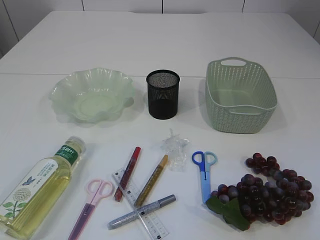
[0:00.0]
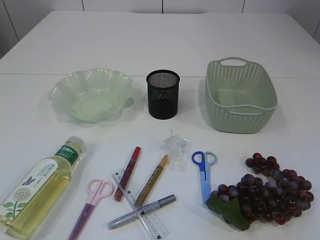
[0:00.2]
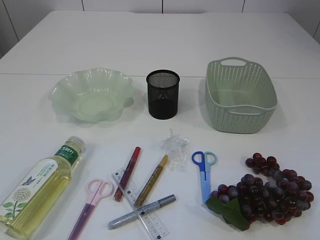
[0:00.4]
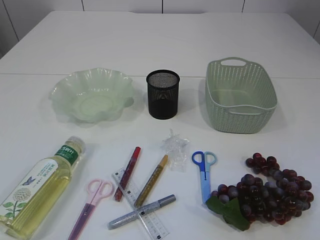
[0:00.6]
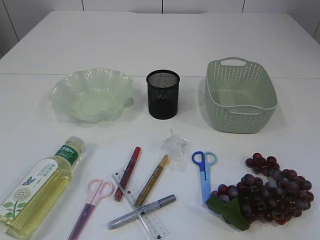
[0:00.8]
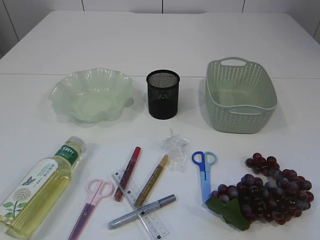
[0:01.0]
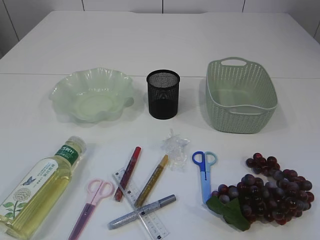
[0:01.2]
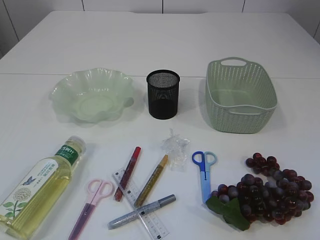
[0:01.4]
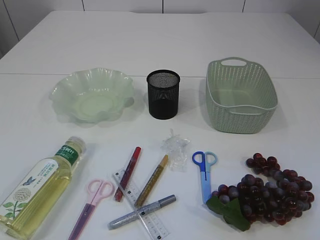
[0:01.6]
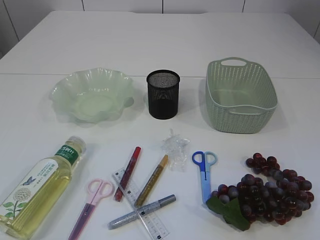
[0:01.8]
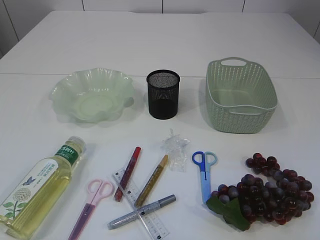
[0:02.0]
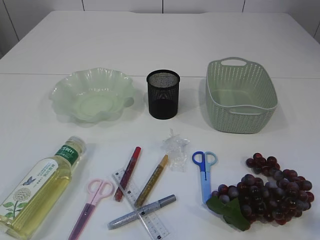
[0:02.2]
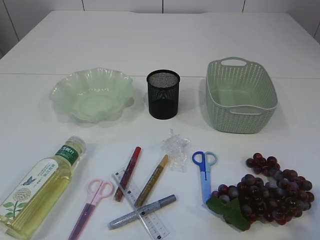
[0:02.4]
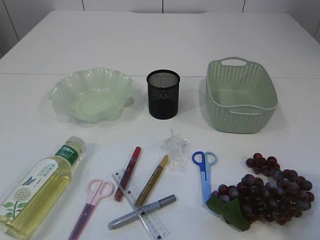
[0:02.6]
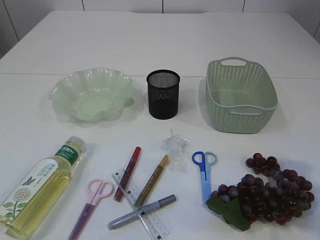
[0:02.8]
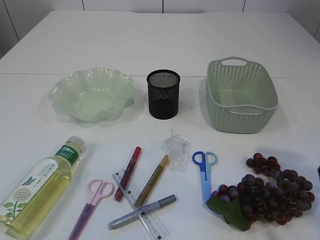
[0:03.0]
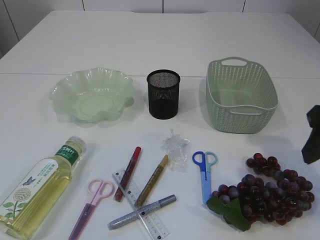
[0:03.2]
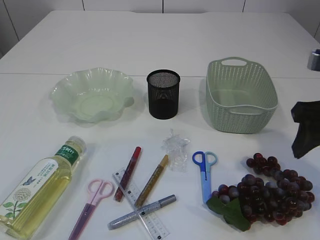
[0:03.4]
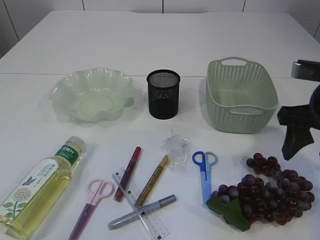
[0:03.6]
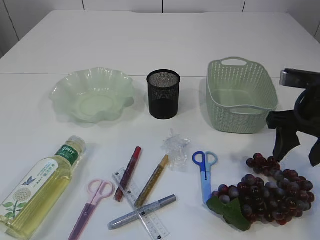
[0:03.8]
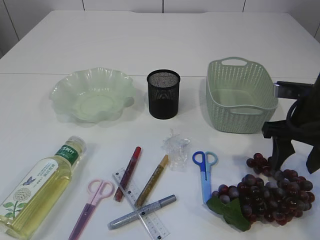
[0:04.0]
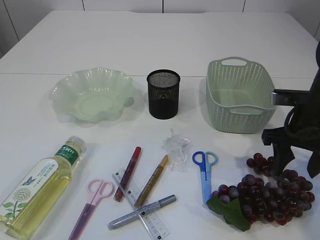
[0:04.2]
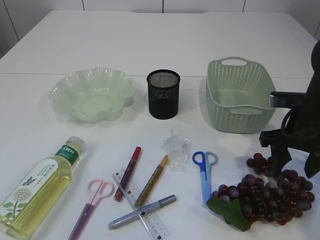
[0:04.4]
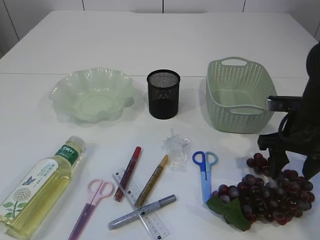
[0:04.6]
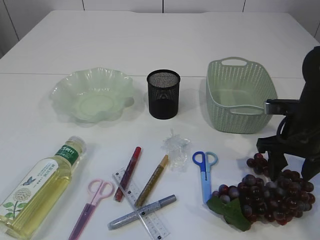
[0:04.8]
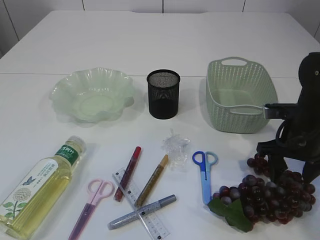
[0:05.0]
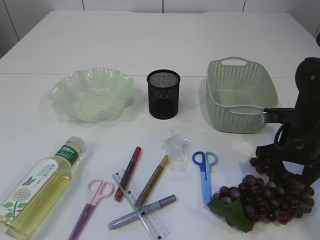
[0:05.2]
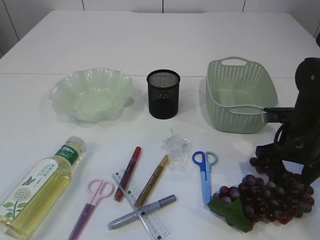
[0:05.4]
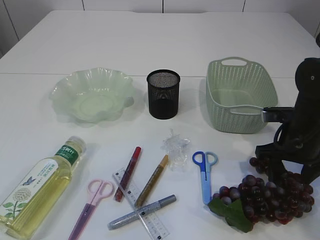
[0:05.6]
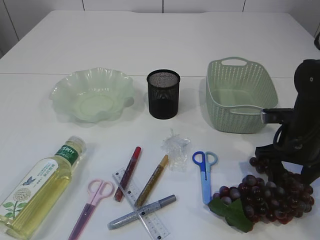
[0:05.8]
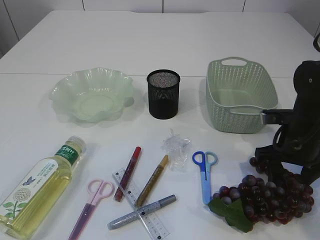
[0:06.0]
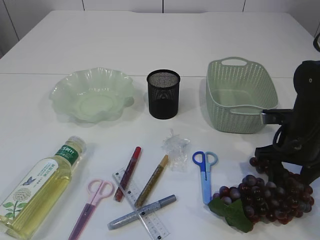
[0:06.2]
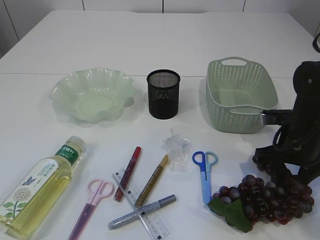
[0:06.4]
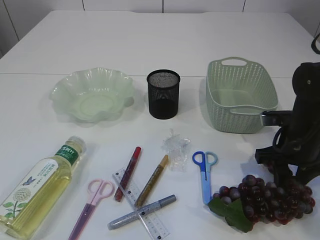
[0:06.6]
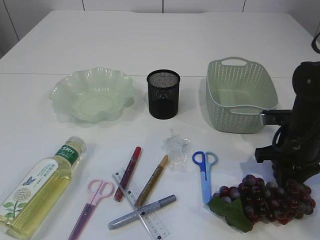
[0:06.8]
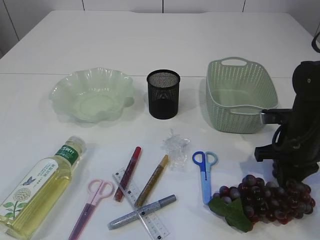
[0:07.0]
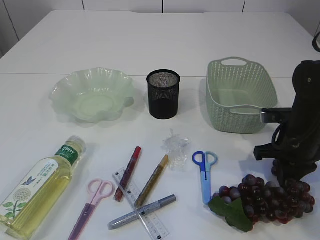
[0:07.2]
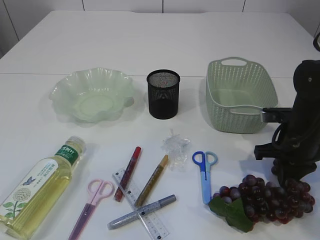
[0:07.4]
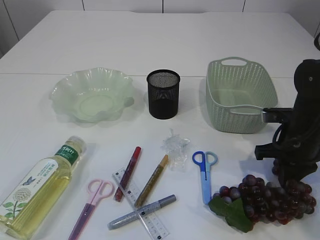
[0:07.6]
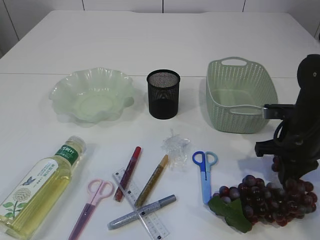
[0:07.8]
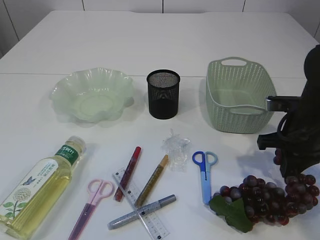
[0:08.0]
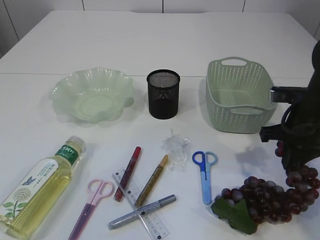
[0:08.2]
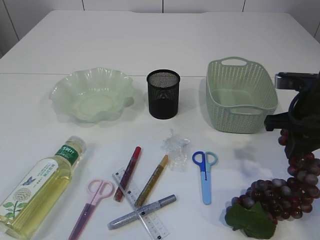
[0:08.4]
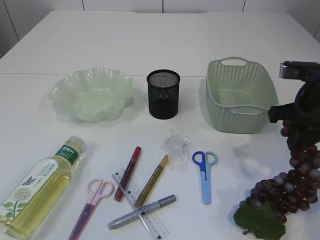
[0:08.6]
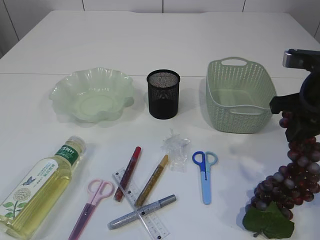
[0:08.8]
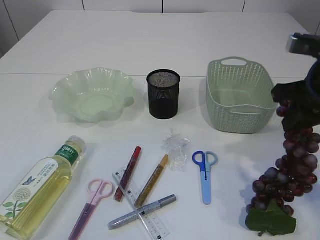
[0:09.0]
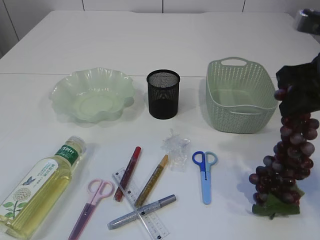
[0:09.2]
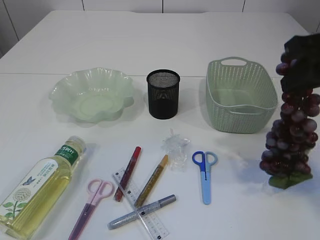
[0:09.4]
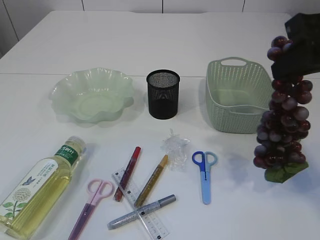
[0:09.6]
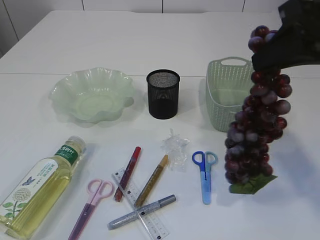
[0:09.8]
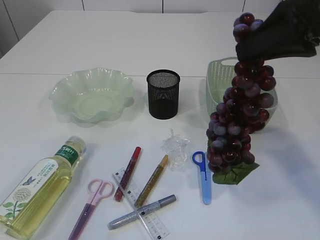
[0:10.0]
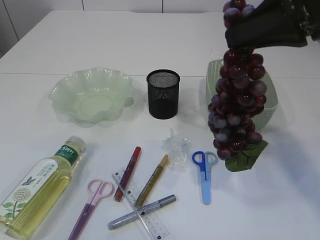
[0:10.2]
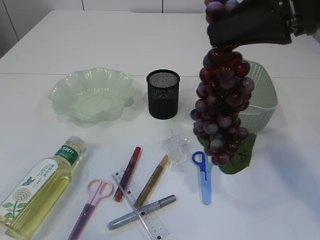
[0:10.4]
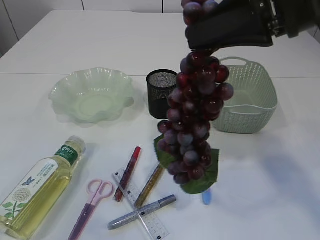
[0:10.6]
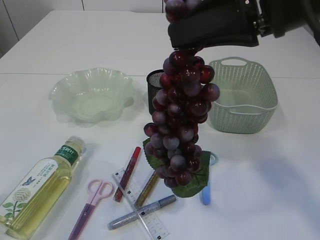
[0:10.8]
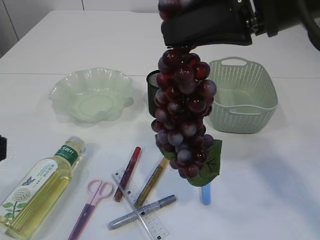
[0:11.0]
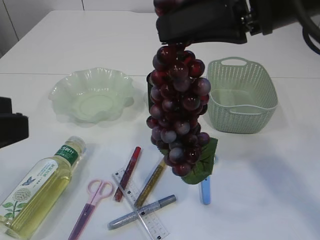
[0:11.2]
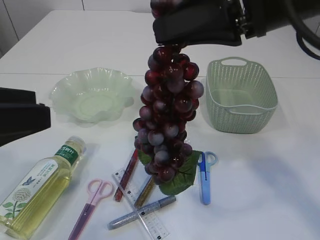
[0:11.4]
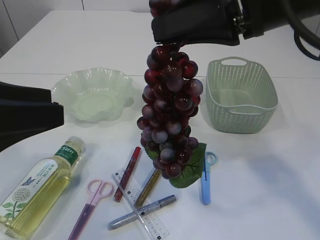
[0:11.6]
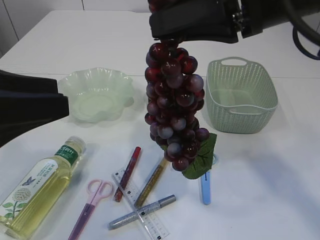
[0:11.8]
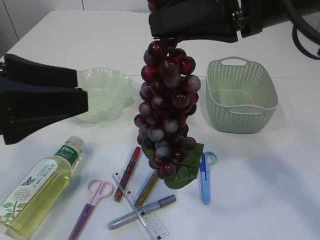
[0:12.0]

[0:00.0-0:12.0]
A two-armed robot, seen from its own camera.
Step, 0:00.0 to 0:10.2: Pick up the grapes.
0:01.6 to 0:03.0: The right gripper heads forward, covering roughly 20 cm.
0:03.0 to 0:04.4: The right gripper heads forward and downward, covering about 15 cm.
0:04.4 to 0:06.0: The grippers make only small movements.
0:06.0 to 0:07.6: The right gripper closes its fingers.
0:07.6 to 0:09.0: The right gripper moves upward, approximately 15 cm.
0:09.0 to 0:10.4: The right gripper heads upward and to the left, covering roughly 15 cm, while the left gripper heads forward, covering approximately 5 cm.
0:10.4 to 0:12.0: The left gripper goes approximately 15 cm forward and to the right, and opens. Meanwhile the right gripper is displaced to the left by some 5 cm.

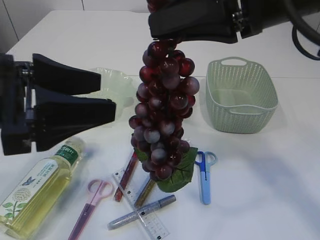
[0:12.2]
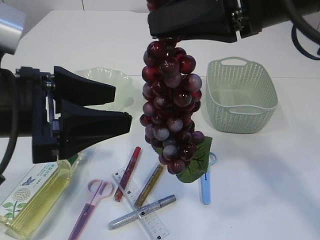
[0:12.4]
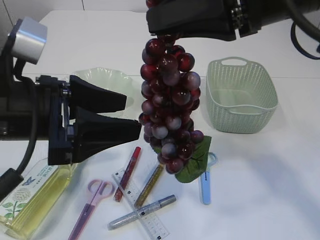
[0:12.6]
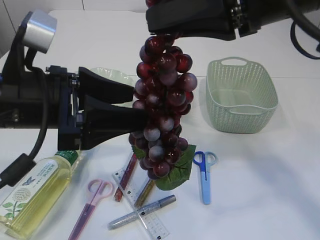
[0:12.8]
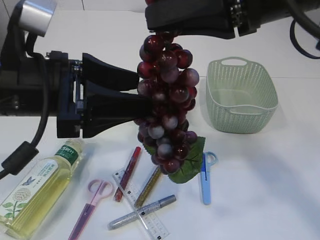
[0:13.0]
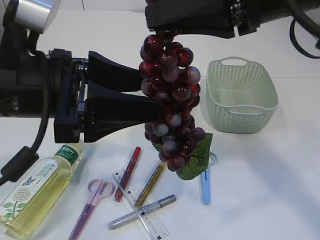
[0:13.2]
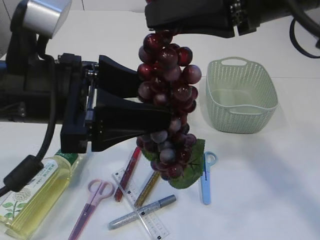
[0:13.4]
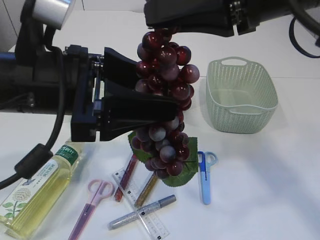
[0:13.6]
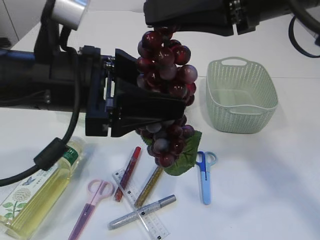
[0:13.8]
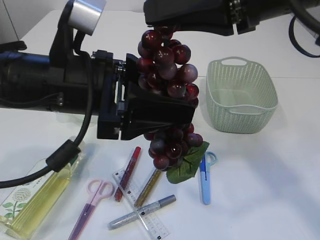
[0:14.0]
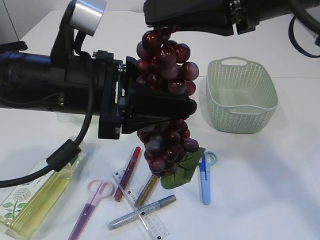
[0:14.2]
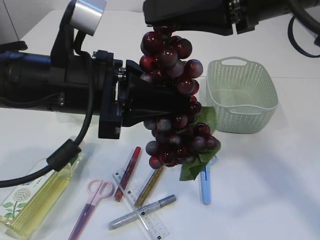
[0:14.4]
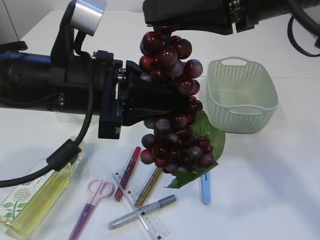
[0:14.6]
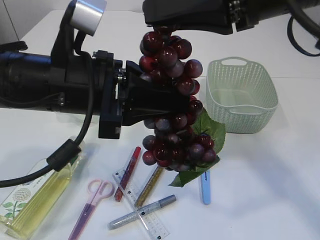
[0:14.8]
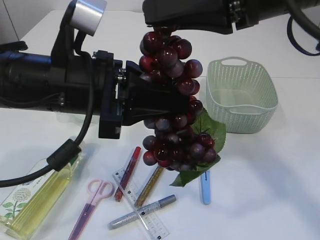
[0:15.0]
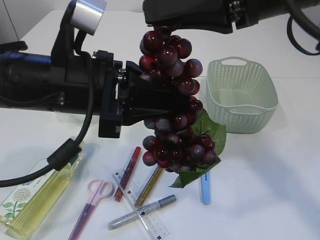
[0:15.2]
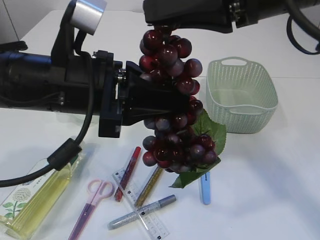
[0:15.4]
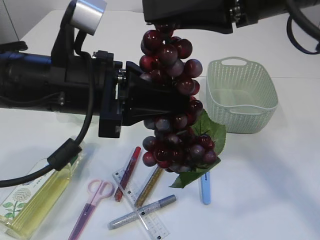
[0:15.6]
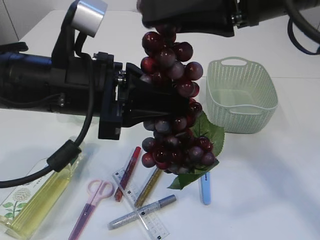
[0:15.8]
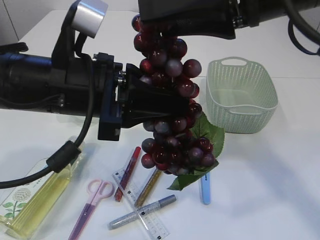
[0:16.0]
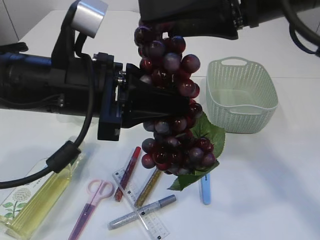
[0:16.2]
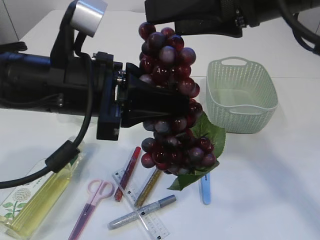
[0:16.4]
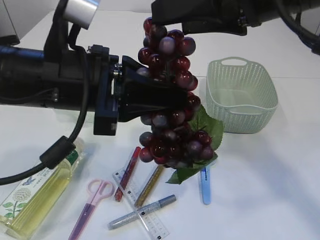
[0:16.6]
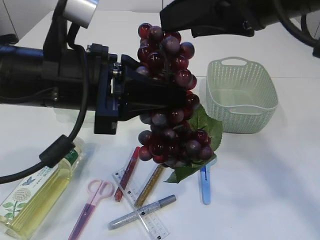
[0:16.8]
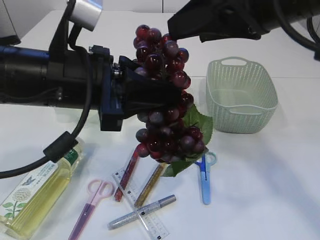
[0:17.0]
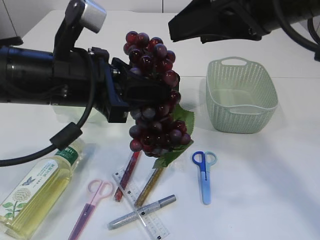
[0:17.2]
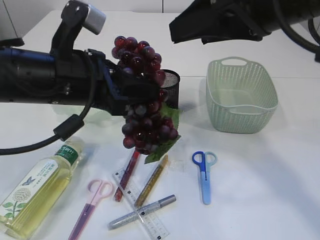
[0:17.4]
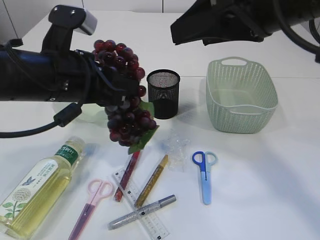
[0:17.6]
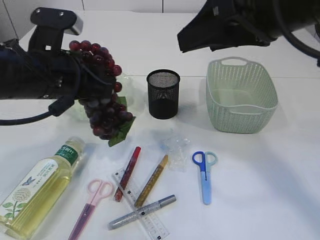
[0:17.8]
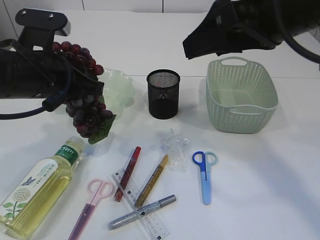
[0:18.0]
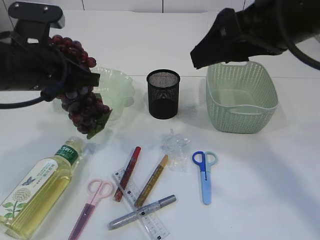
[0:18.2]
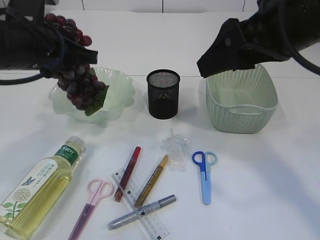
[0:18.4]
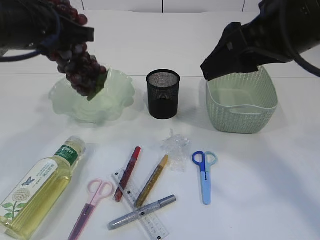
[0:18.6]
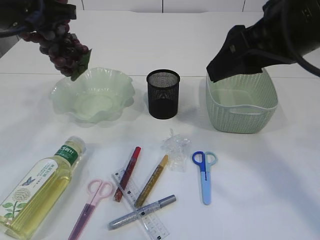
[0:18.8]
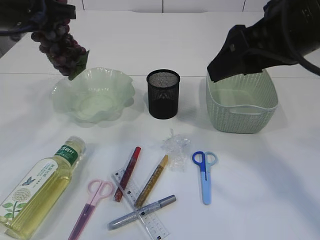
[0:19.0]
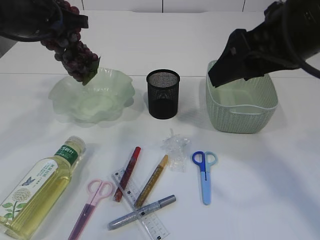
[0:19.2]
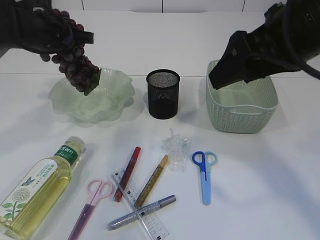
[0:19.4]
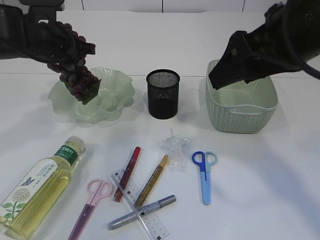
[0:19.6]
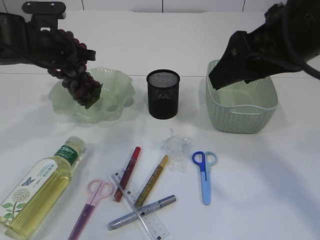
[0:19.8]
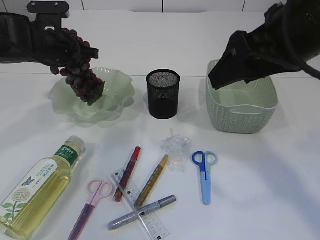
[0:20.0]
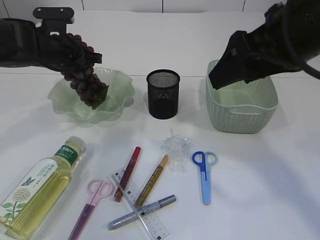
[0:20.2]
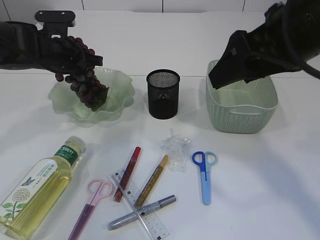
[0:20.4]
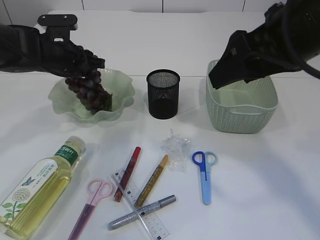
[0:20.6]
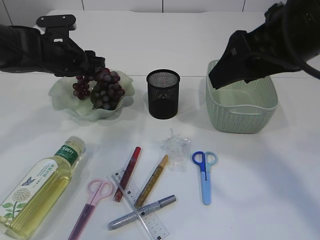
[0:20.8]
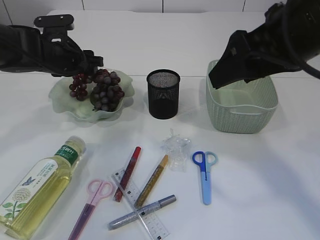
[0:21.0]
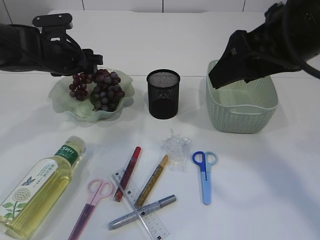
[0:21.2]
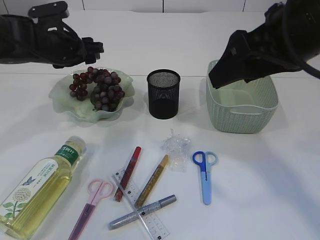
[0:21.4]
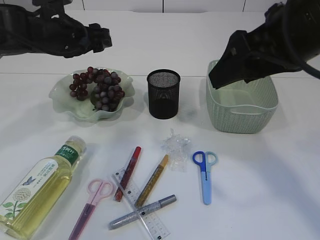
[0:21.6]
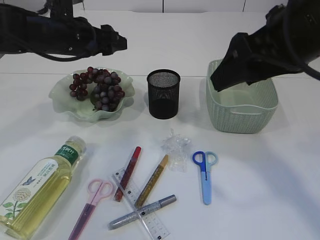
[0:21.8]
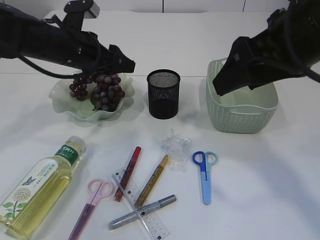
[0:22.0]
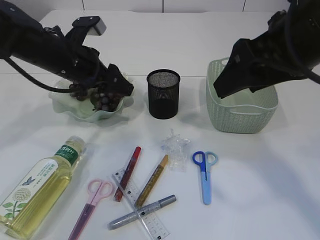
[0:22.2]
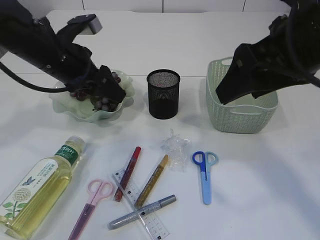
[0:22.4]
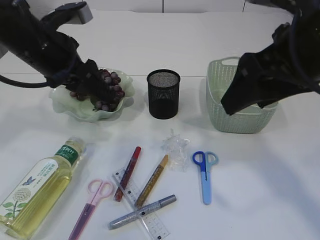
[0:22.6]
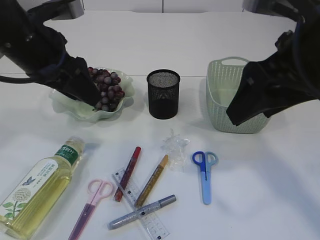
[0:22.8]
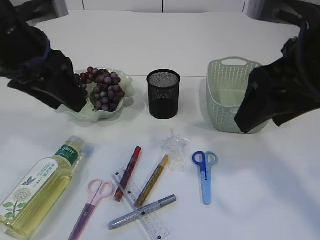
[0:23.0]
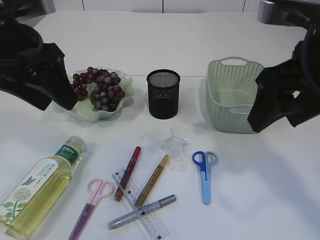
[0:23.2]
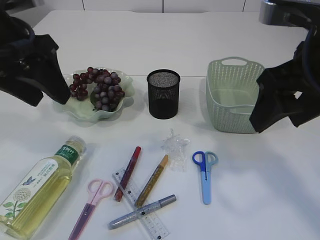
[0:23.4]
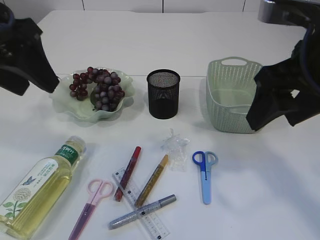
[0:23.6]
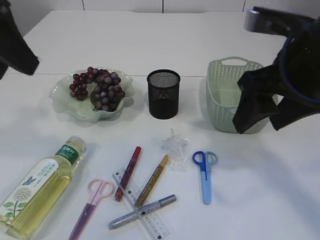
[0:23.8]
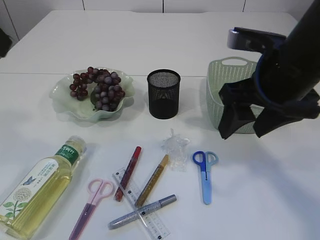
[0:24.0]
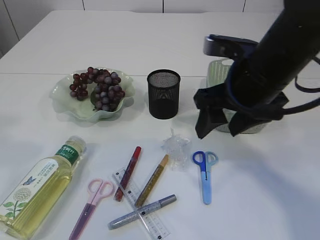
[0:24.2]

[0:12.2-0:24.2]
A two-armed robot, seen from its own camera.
Step, 0:12.2 to 0:17.4: Hand over the grapes.
Step, 0:17.6 to 0:21.4: Place the grapes in the plate.
0:12.2 to 0:13.8: The left gripper moves to the right, about 5 cm.
0:13.8 to 0:15.2: The left gripper closes its fingers.
0:15.2 to 0:16.6: The right gripper opens.
0:16.6 to 0:18.2: The left gripper heads to the left and forward, covering some 10 cm.
0:18.2 to 0:19.8: The left gripper is displaced forward by approximately 15 cm.
0:19.8 to 0:21.2: The left gripper opens.
0:21.2 to 0:22.6: The left gripper travels backward and upward by about 15 cm.
0:22.6 to 0:24.2: The left gripper heads upward, backward and to the left, covering roughly 25 cm, while the right gripper goes about 5 cm downward.
